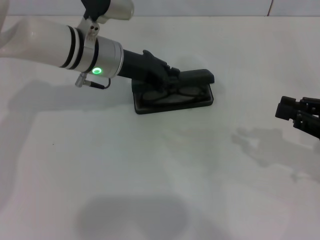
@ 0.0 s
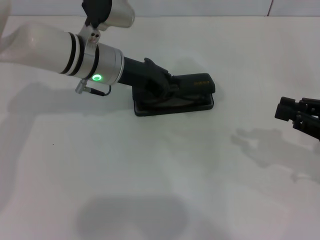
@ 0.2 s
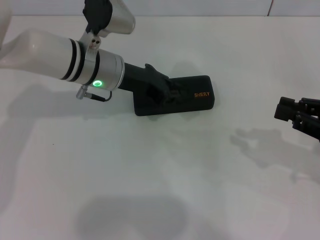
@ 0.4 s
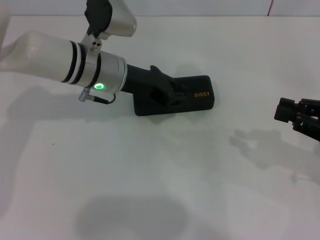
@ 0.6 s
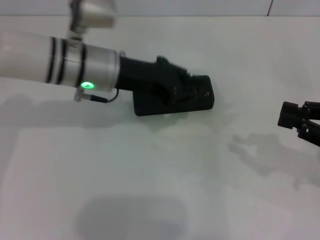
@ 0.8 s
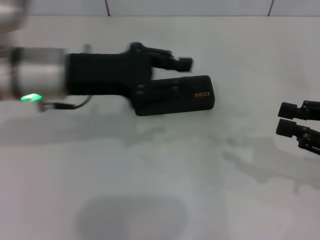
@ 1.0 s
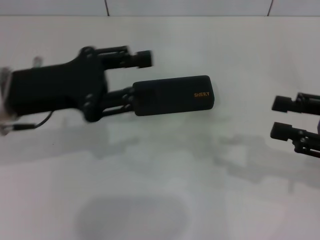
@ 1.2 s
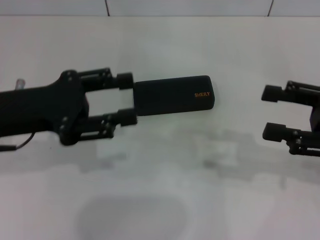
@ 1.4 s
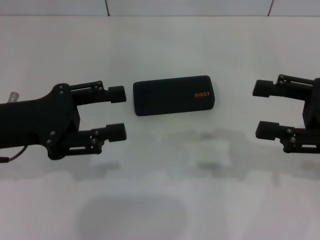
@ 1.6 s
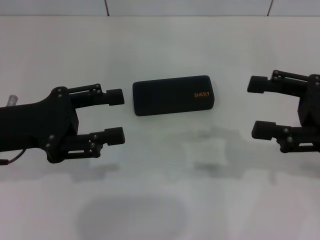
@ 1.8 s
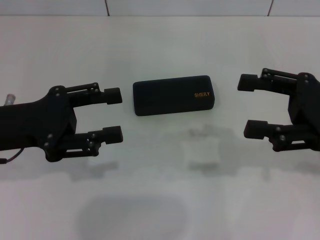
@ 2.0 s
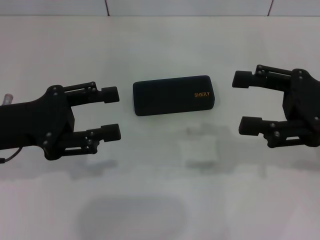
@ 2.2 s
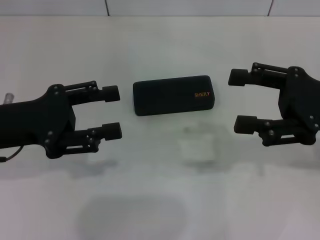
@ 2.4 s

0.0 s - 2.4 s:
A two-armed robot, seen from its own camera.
0.0 s - 1.2 s: The left gripper travels backward and to the left by roughly 15 cm.
1.2 s - 2.4 s: The right gripper moves about 5 cm, and opens up. The left gripper changes place by some 5 cm, and opens up.

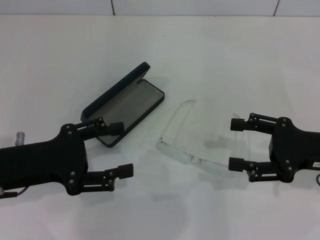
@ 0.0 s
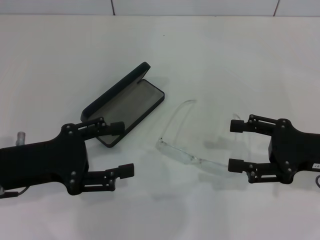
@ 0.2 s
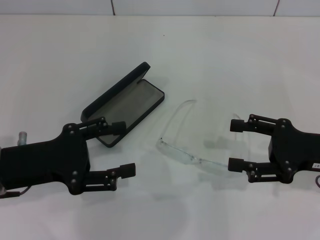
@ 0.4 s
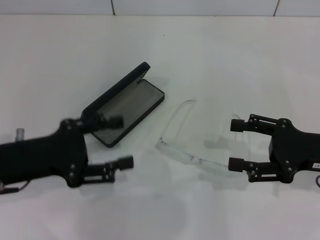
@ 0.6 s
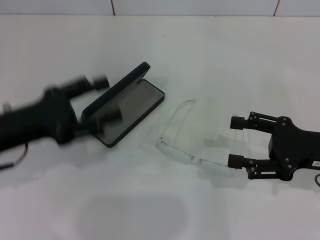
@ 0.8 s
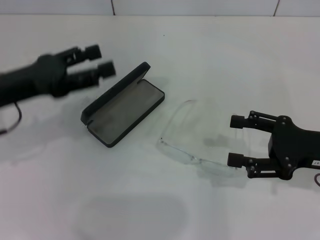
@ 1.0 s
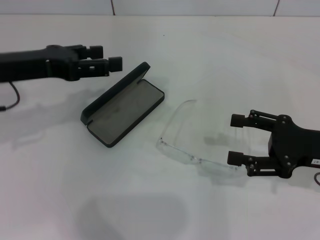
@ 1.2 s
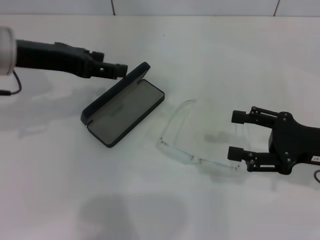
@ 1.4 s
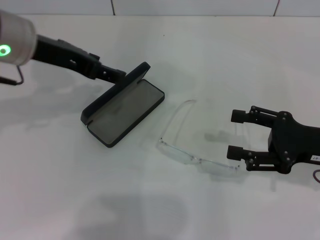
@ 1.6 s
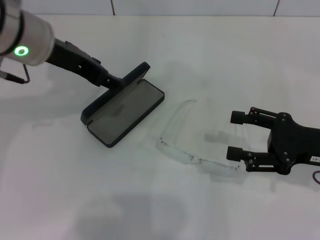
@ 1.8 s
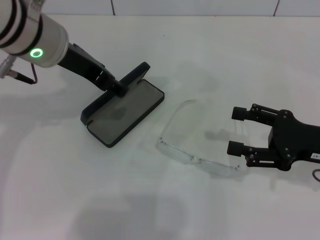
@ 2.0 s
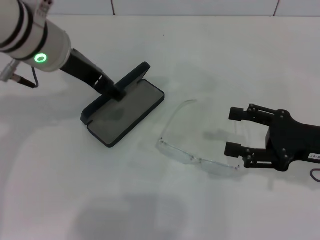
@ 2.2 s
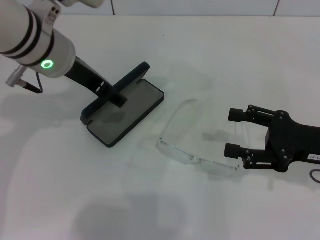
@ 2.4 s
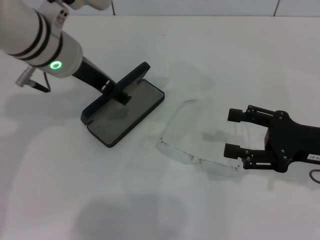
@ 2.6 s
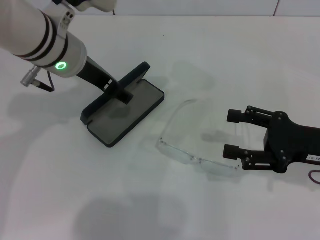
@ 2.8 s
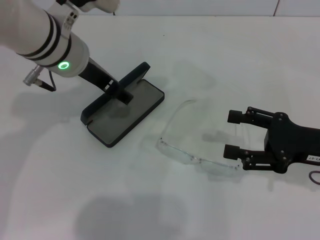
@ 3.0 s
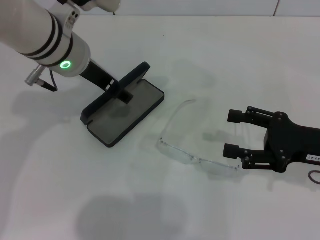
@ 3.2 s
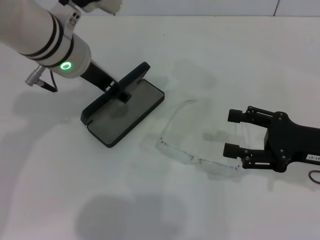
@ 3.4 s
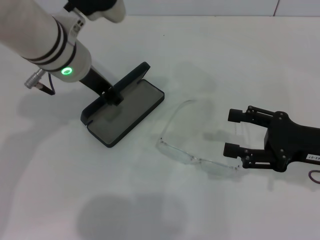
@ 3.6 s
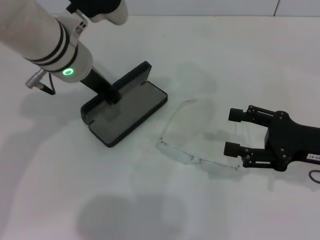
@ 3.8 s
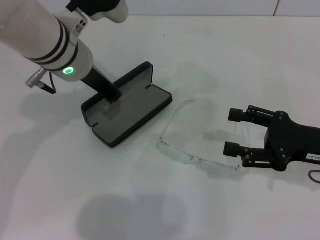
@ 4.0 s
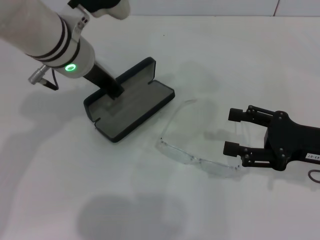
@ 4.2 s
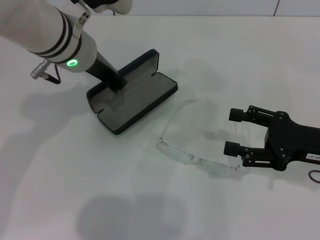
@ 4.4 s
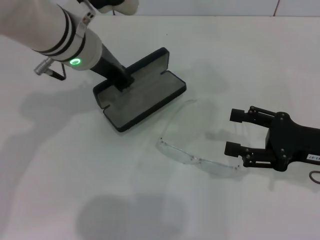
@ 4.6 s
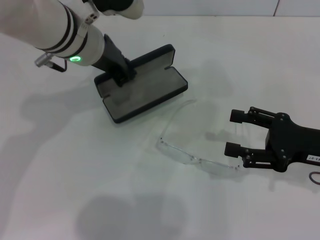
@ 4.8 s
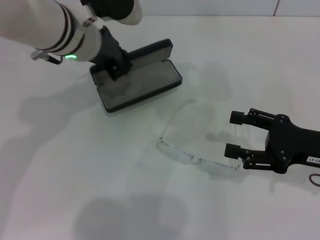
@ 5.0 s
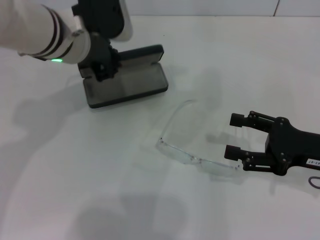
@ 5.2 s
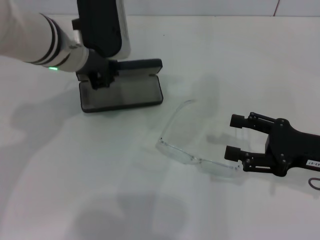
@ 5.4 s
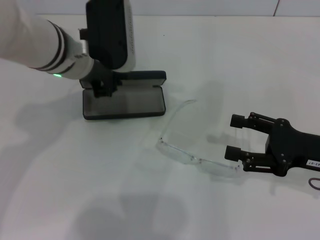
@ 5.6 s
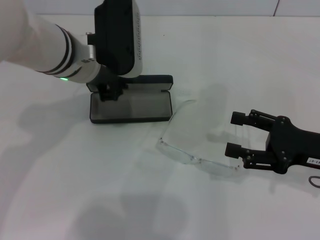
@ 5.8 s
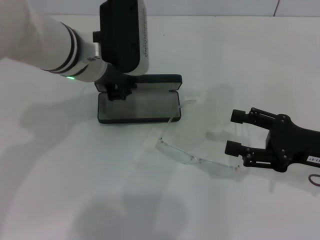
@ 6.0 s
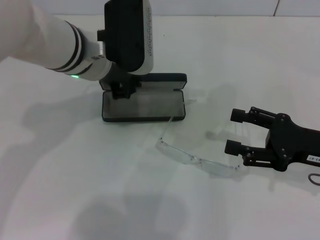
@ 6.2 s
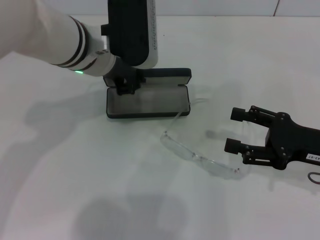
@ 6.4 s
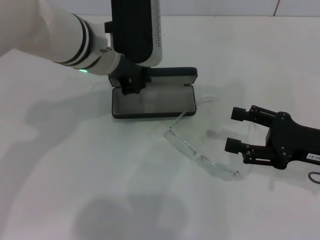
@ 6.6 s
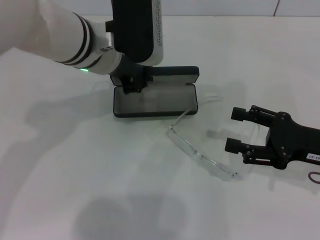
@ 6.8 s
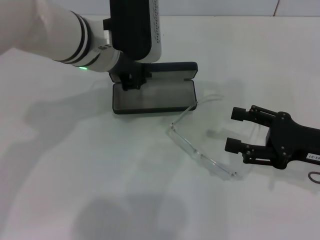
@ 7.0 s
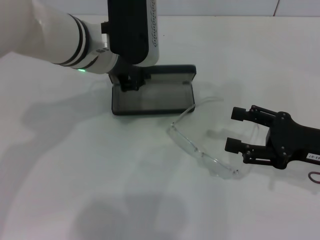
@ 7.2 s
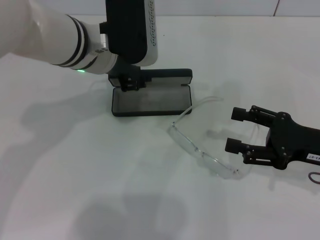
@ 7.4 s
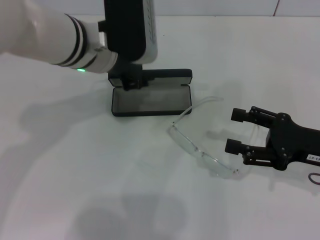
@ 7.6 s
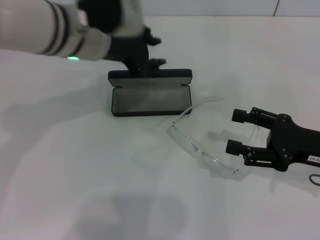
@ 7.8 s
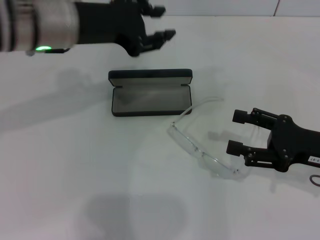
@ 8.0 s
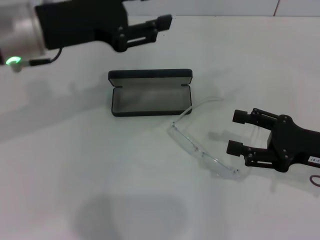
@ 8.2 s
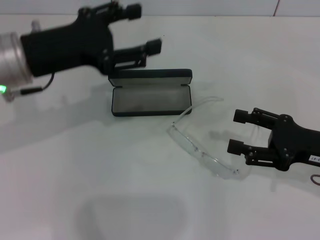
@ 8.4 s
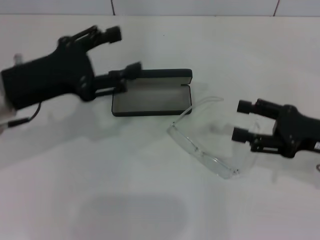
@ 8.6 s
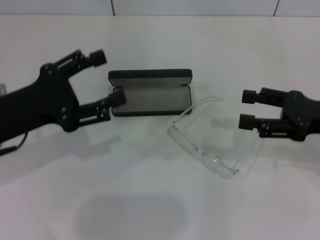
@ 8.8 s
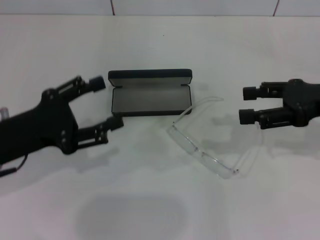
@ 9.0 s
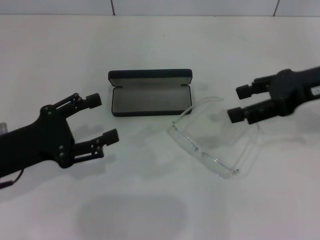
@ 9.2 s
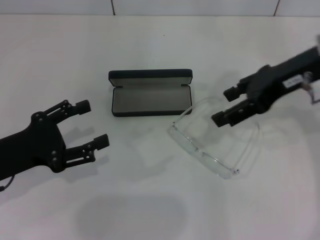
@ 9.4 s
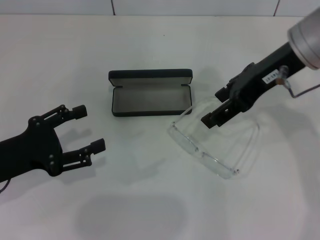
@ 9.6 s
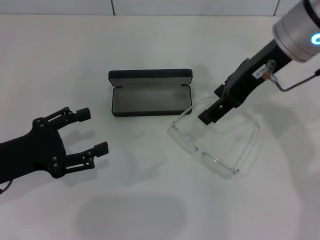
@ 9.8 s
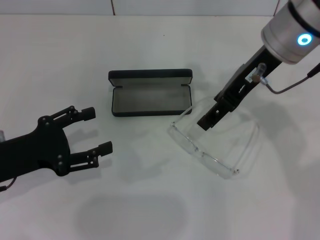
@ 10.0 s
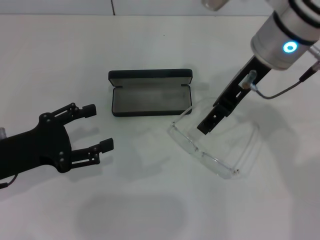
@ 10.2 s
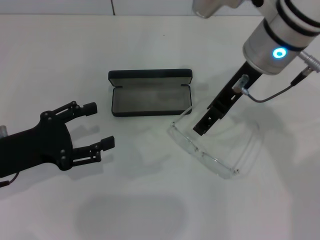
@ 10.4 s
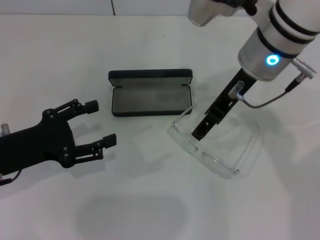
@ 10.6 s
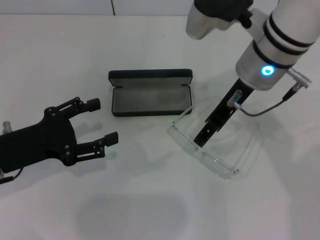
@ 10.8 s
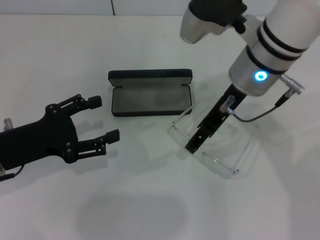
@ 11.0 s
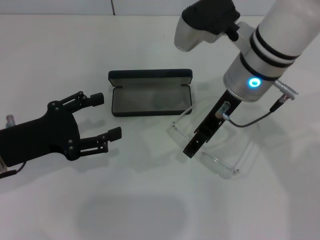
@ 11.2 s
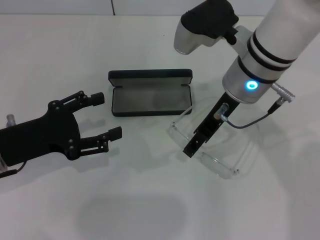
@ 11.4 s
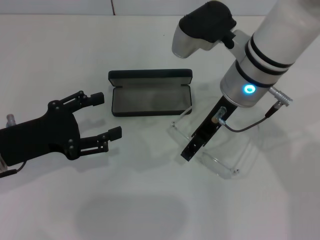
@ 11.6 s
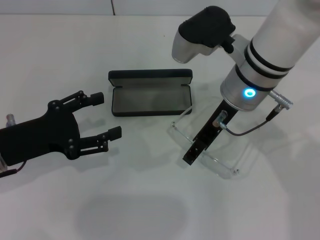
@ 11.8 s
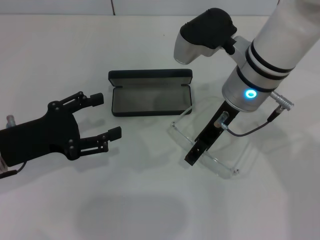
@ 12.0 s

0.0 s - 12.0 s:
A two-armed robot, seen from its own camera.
Step, 0.0 s - 3.8 s: Grab the glasses case with your left hand.
Step, 4.0 s - 7.6 s: Place the glasses case in the center of the table with your left hand.
0.0 s - 1.6 s: The left gripper travels forward, upward and to the right by approximately 20 cm.
1.6 s - 3.0 s: The left gripper shifts some 5 cm to the right.
3.0 s - 4.4 s: The left gripper closes its fingers.
6.0 s - 7.6 s: There are only small adjustments of the grippers.
7.6 s - 9.0 s: The left gripper shifts approximately 20 cm to the left, backward and downward, and opens its fingers. Meanwhile the right gripper shifts approximately 10 cm upward and forward.
9.0 s - 10.4 s: The right gripper moves to the left, roughly 15 cm.
10.4 s - 12.0 s: The right gripper heads downward, covering about 5 cm.

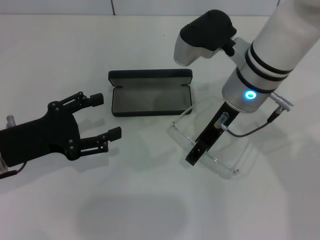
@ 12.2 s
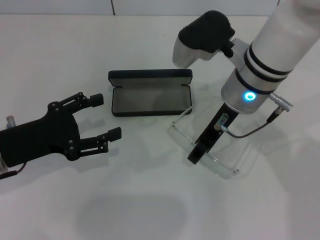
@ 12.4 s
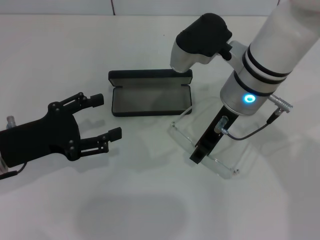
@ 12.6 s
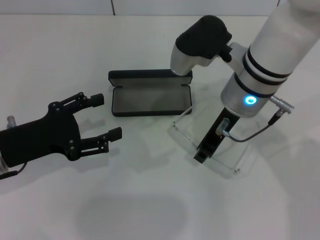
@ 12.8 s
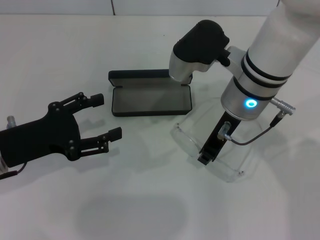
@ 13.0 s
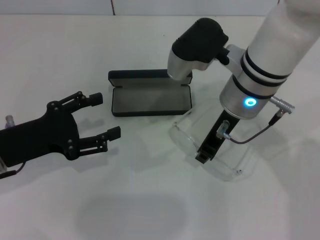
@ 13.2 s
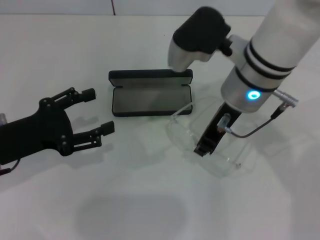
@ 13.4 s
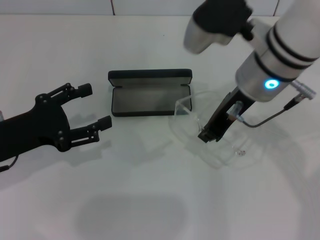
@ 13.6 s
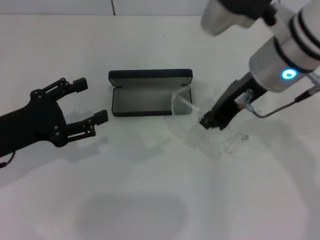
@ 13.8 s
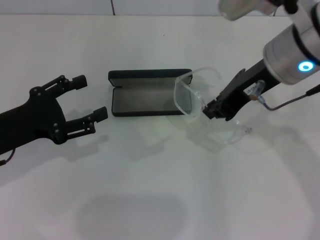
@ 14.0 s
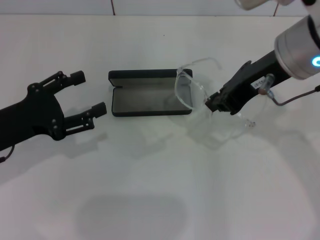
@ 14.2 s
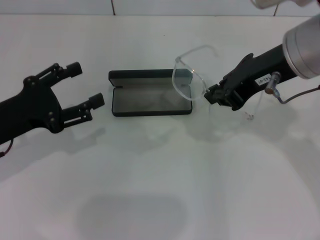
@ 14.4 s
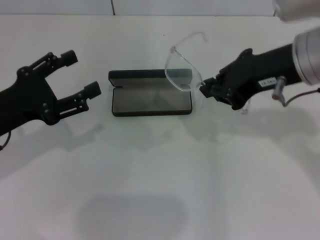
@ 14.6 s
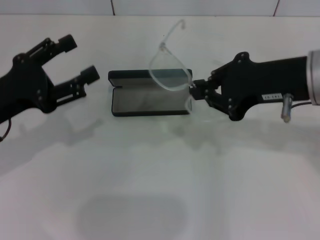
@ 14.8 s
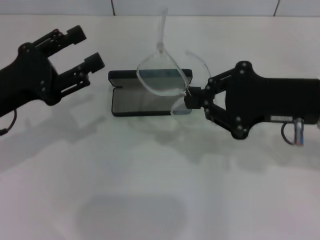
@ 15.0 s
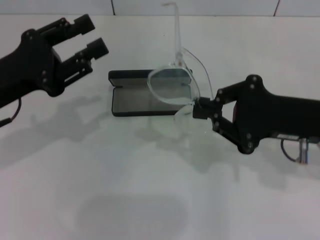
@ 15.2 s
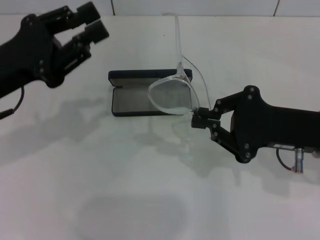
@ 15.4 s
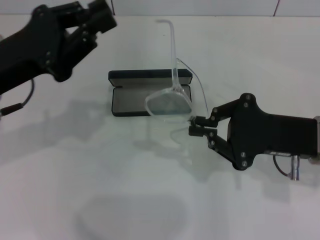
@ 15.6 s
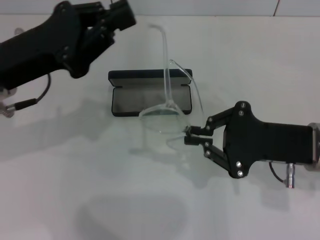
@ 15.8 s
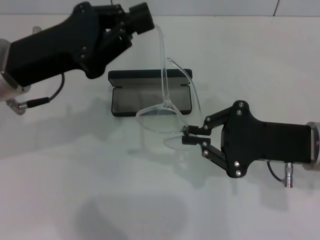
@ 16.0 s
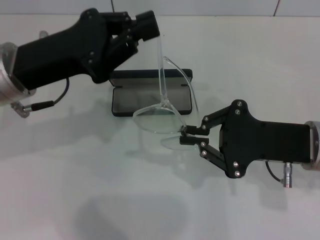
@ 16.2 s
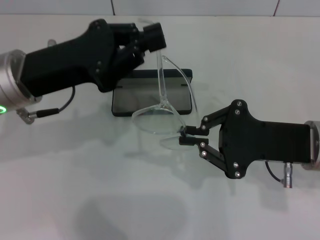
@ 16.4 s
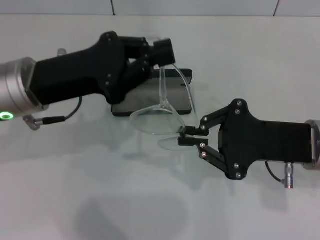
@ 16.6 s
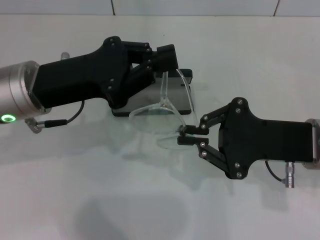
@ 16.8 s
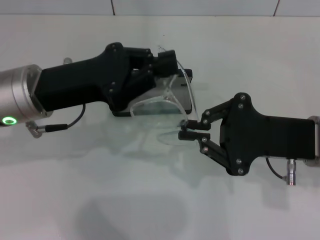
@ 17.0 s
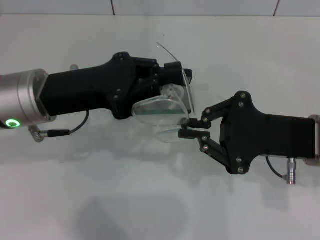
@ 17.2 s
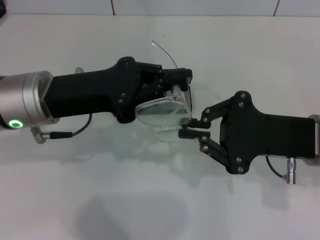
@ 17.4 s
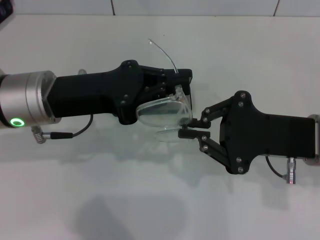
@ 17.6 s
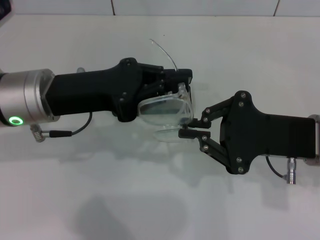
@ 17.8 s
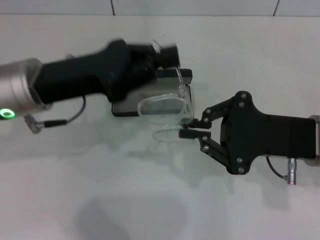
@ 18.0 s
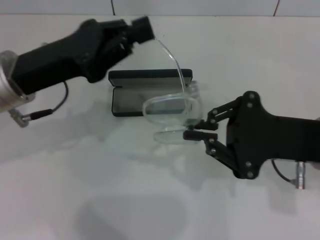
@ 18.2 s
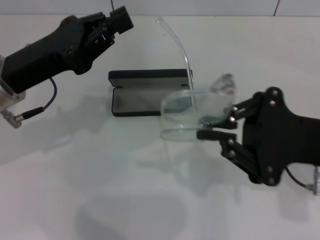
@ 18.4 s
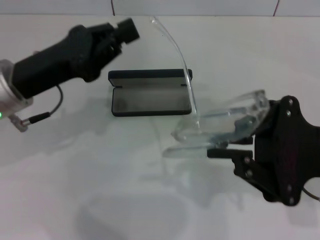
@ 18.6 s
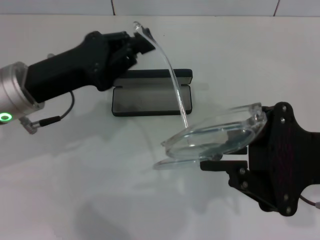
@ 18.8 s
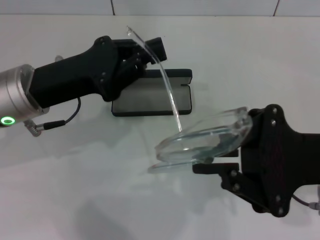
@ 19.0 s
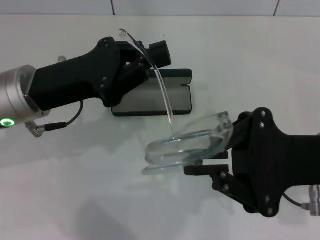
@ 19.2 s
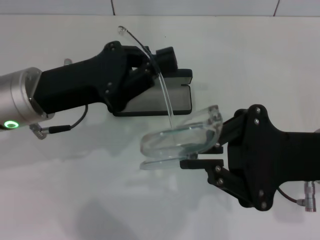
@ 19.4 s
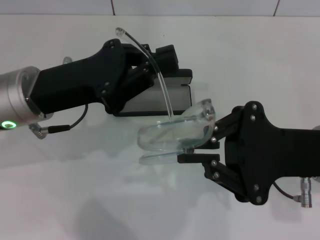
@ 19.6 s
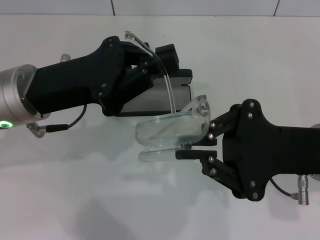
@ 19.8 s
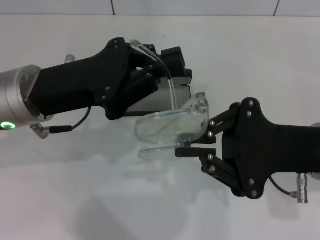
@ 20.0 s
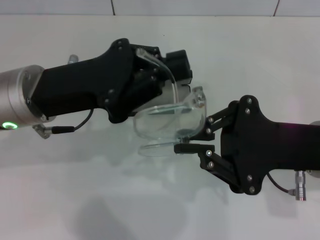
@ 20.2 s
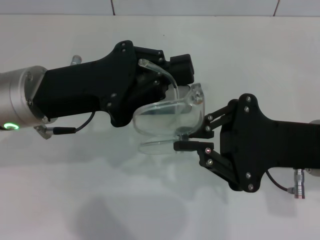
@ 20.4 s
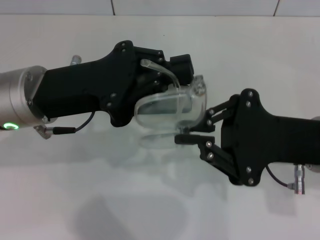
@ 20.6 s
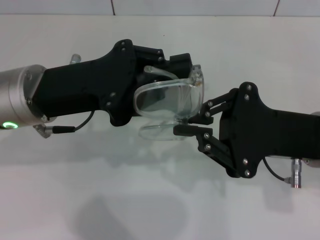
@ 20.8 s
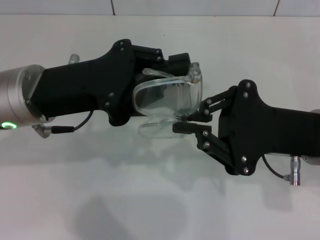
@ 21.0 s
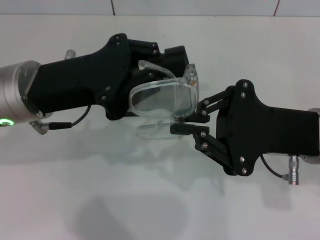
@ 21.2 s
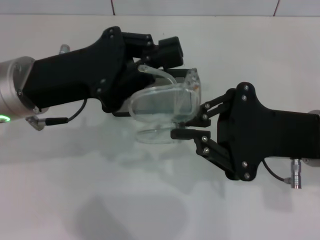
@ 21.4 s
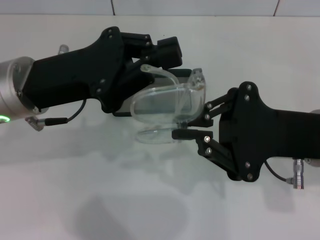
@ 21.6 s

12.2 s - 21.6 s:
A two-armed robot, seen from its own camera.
Step, 13.0 s - 21.2 s: Fold the frame with your left hand.
12.2 s - 13.8 s: The right gripper travels upward by some 5 cm, and closes.
13.8 s - 15.4 s: The left gripper moves upward, about 5 cm, and closes; the right gripper travels to the right, downward and backward by approximately 15 cm.
15.4 s - 17.0 s: The left gripper is displaced to the right by roughly 5 cm, and closes up.
20.0 s - 21.6 s: Neither gripper changes place.
